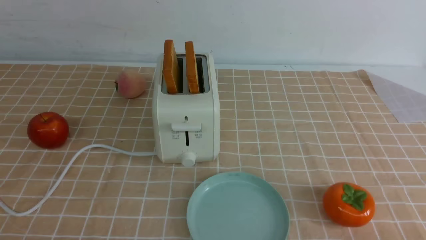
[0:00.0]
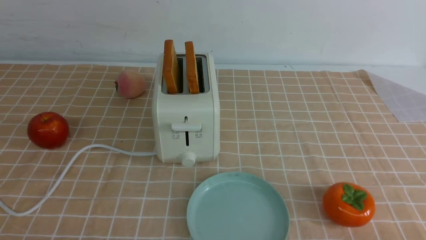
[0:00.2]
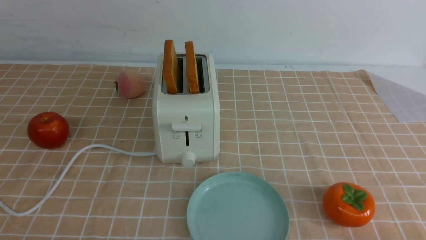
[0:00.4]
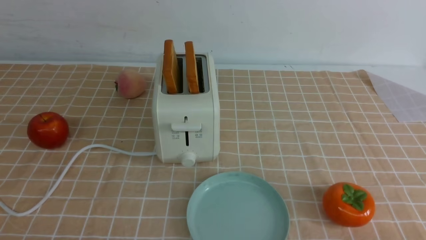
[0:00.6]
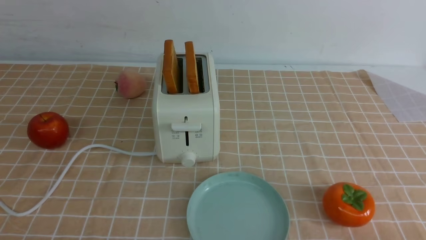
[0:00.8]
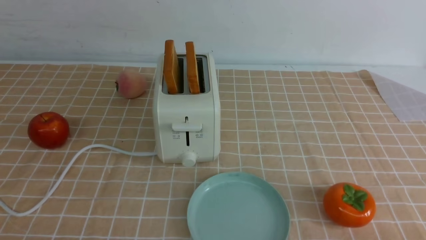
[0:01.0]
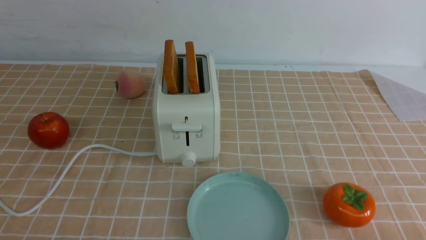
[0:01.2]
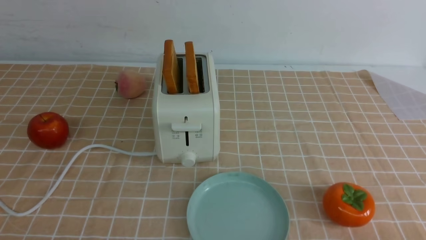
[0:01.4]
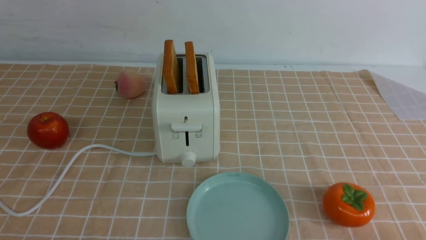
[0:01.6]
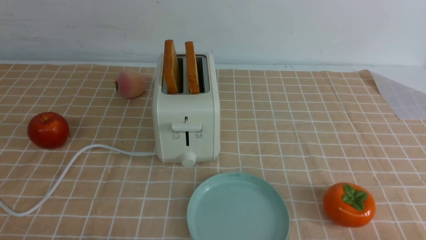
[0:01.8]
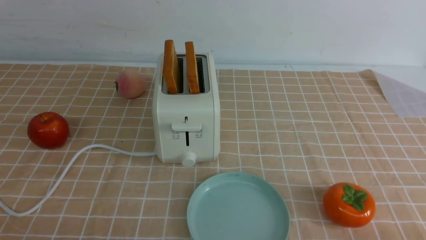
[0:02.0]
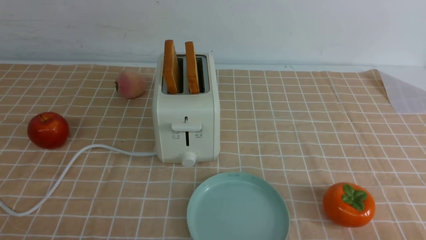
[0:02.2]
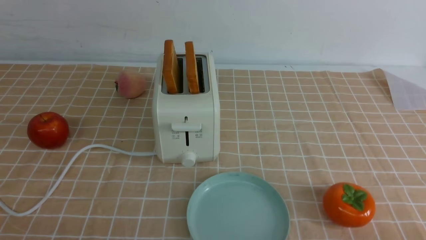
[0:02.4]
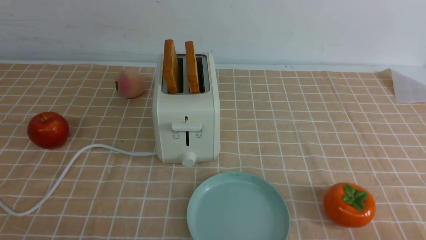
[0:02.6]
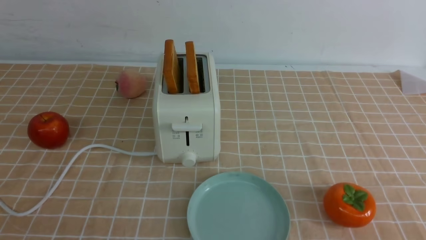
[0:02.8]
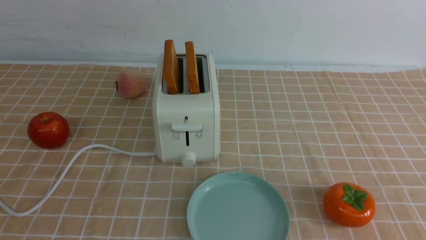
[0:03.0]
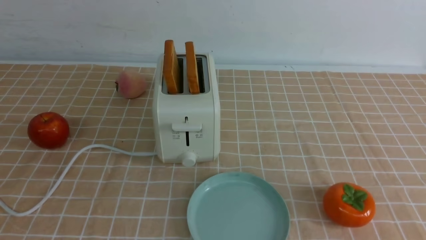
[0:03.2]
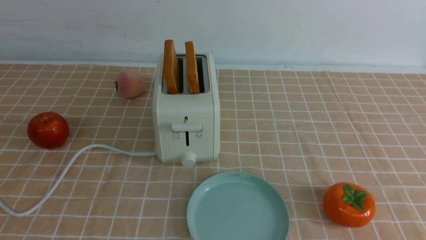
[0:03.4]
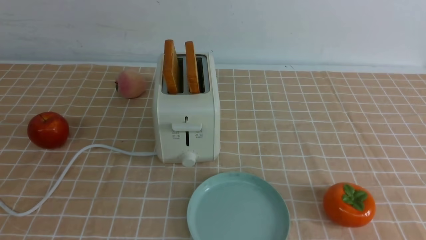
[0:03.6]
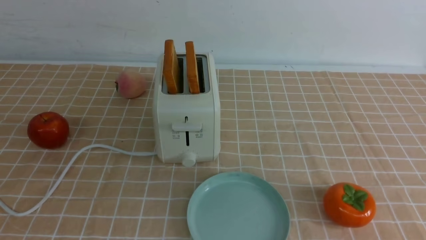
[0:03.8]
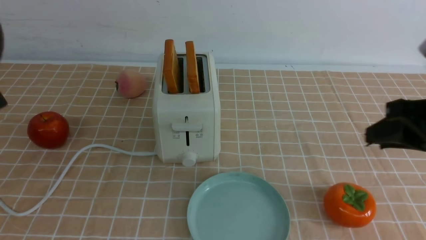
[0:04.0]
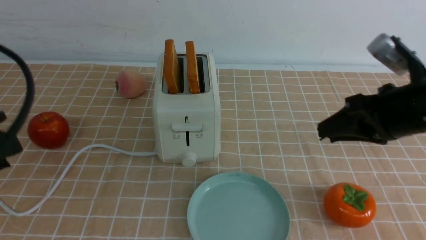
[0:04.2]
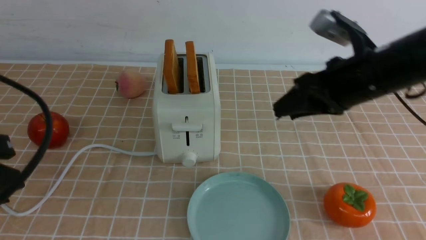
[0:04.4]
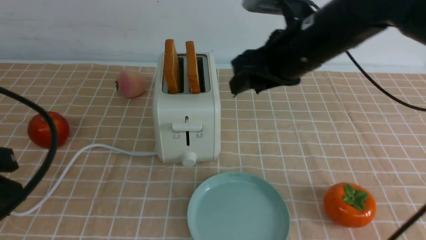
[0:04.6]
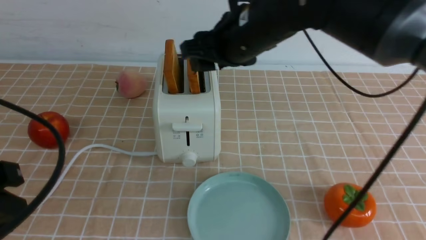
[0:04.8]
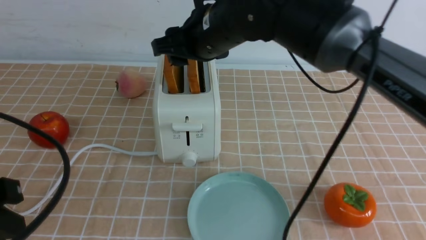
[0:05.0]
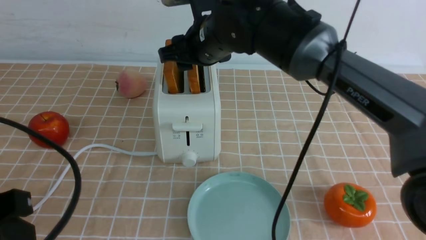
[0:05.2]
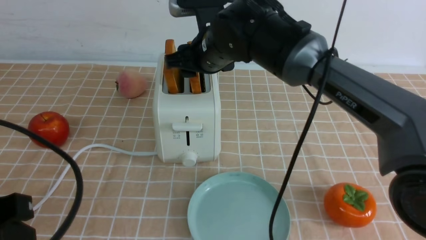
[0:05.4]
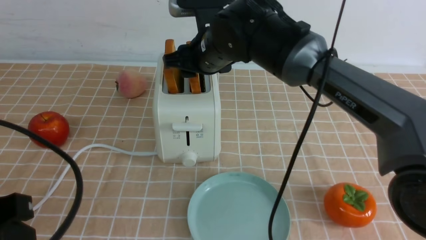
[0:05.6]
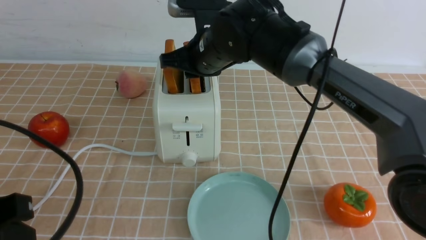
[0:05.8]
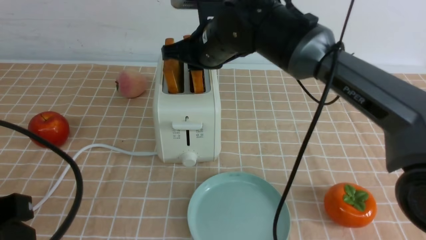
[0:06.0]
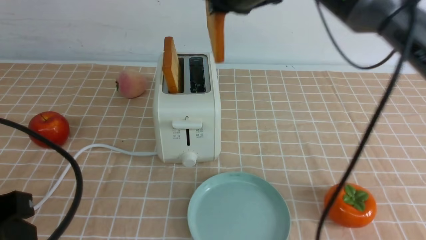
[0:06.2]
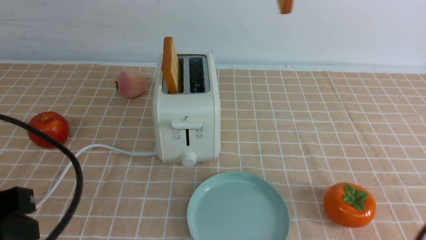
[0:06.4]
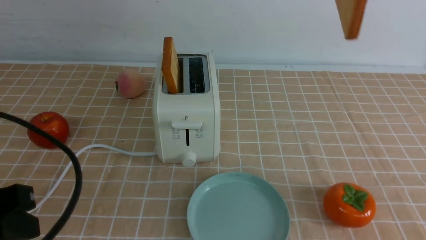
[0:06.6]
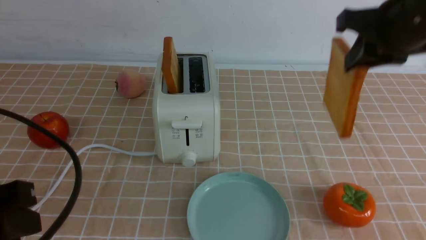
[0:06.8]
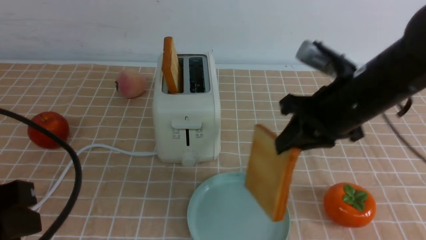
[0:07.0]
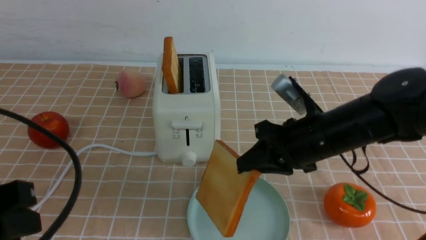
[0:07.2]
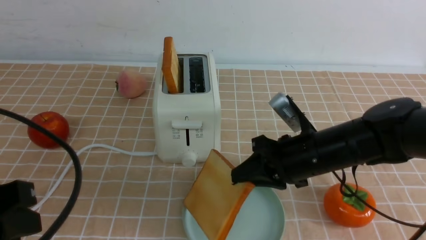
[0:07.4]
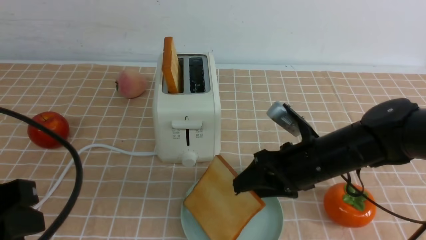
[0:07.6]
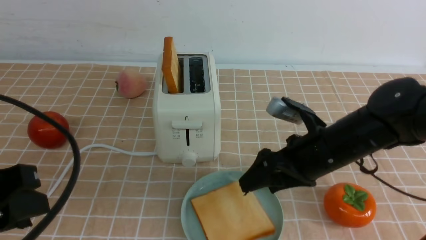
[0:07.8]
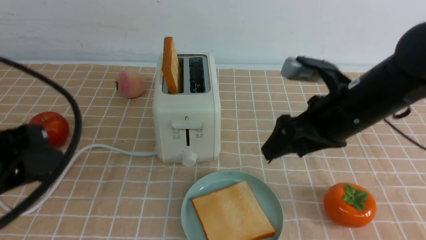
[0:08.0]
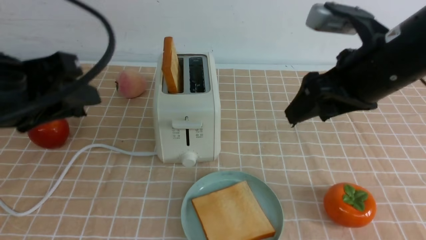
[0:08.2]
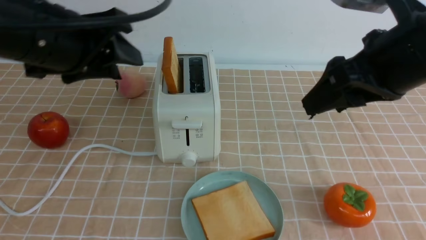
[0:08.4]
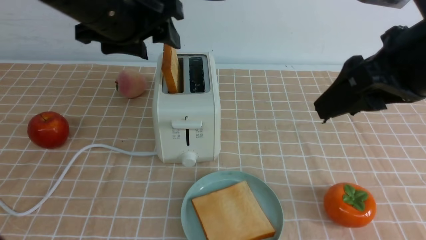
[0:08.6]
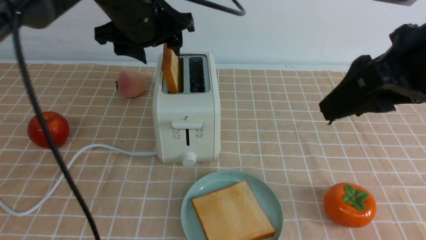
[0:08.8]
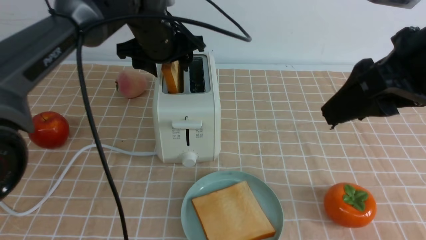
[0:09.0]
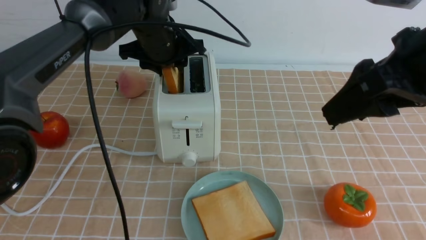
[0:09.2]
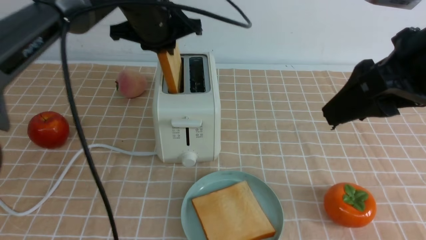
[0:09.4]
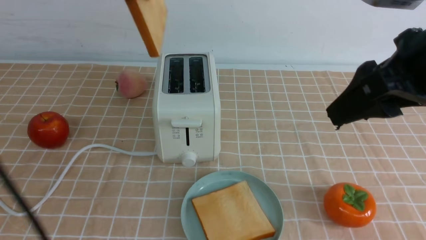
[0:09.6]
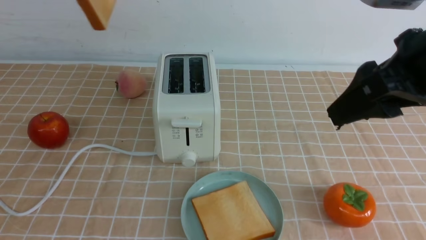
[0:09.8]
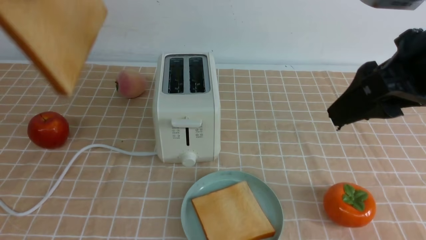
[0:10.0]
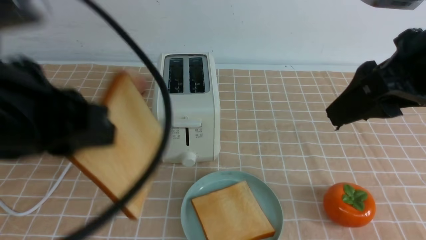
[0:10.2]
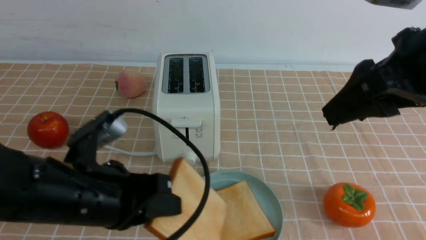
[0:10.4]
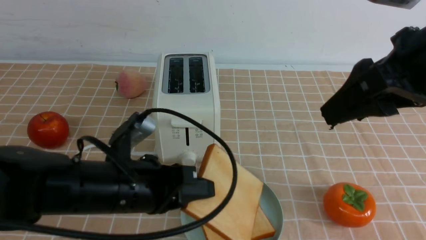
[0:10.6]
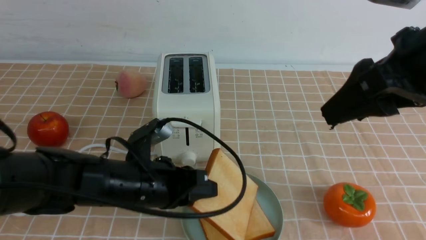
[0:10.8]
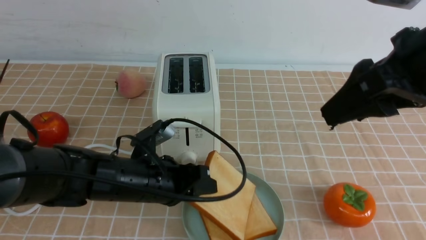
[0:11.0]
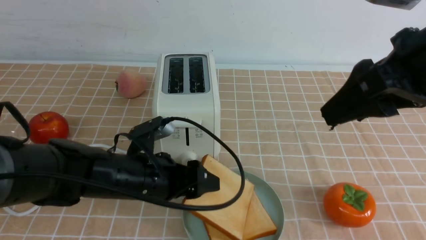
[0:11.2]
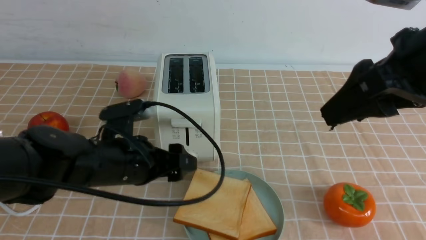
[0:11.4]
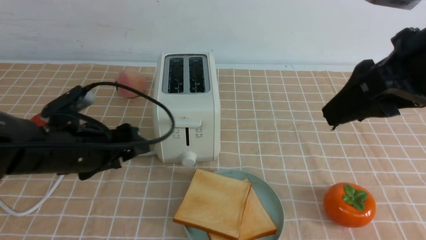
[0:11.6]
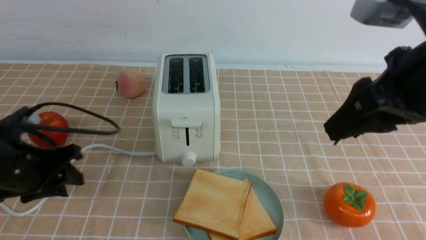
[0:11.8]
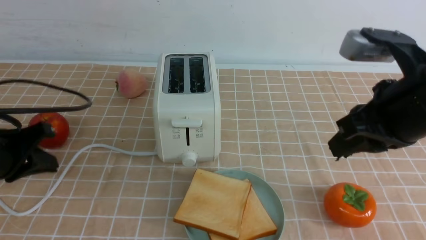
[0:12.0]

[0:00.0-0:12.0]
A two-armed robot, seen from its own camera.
Task of the whole recording: take toasted bread from bread machine on light coffee tablecloth place on plate.
Step, 0:00.0 to 0:06.0: use the right arm to take out a slice of bread.
Step, 0:06.2 to 0:07.8: use the right arm to put a slice of bread into the plate.
Step, 0:08.0 to 0:09.4: use the left arm to take out a slice of bread.
Step, 0:09.6 to 0:11.2: use the left arm to put a slice of bread into the empty plate.
0:00.0 to 0:01.6: Both grippers stay about where they are.
0:01.6 to 0:03.0: The right gripper travels upward by some 20 cm.
0:03.0 to 0:04.4: The left gripper shifts roughly 10 cm forward, while the right gripper moves forward and to the left, about 30 cm.
0:04.4 to 0:06.0: The right gripper moves to the left and forward, some 15 cm, and closes up.
0:06.0 to 0:07.6: The right gripper travels downward, to the right and backward by about 20 cm, and opens up.
0:07.6 to 0:09.0: The right gripper heads upward, covering roughly 20 cm; the left gripper moves forward and to the right, about 35 cm, and opens up.
0:09.0 to 0:10.4: The left gripper travels backward by about 25 cm, and closes its fingers.
0:10.4 to 0:12.0: The left gripper goes roughly 15 cm to the left, and opens, then closes again; the right gripper moves downward, some 5 cm, and closes.

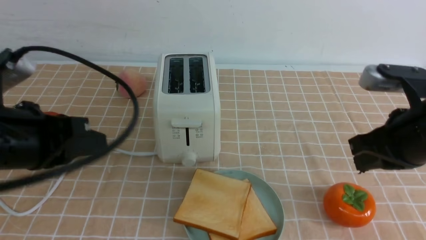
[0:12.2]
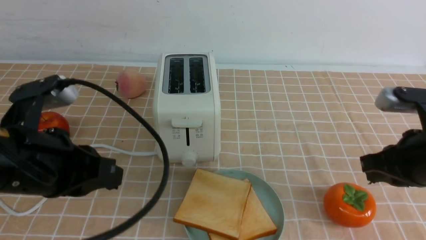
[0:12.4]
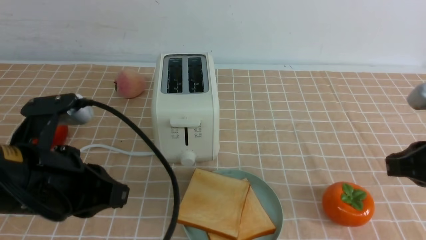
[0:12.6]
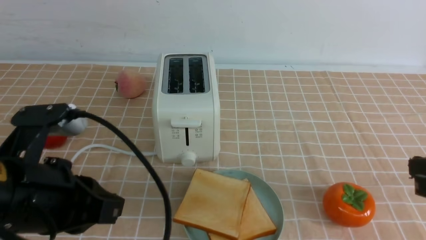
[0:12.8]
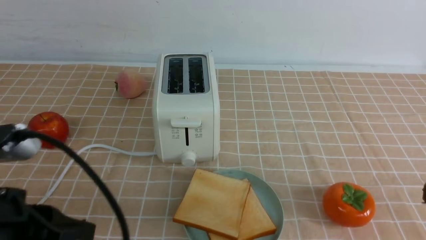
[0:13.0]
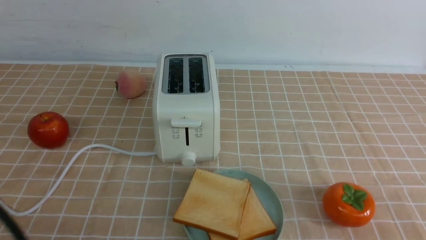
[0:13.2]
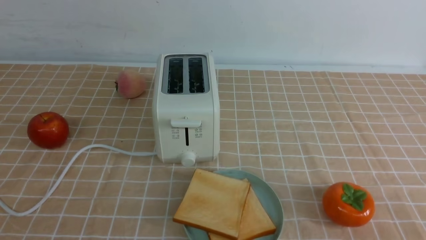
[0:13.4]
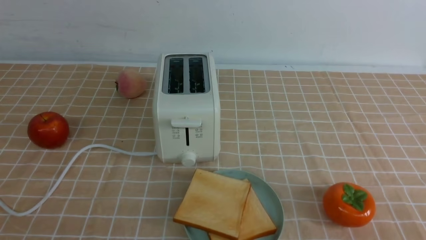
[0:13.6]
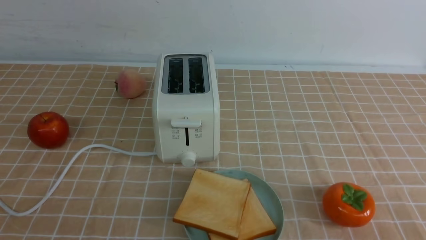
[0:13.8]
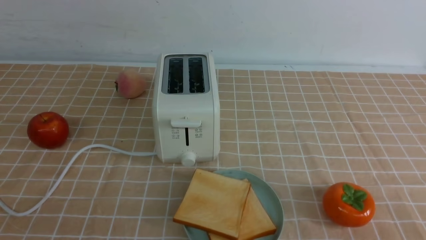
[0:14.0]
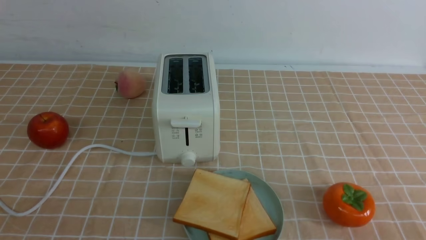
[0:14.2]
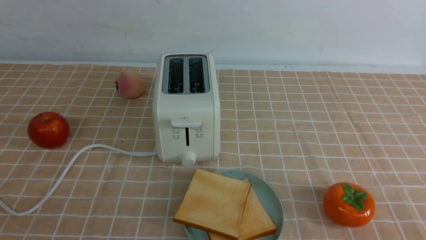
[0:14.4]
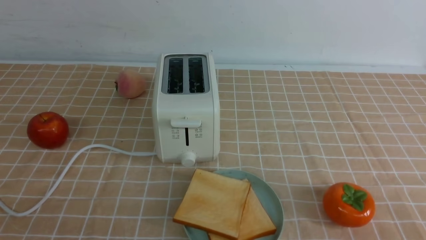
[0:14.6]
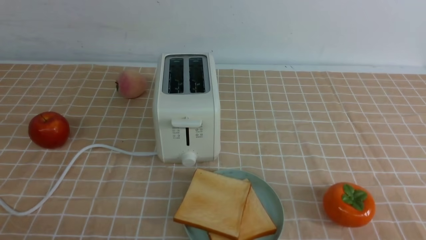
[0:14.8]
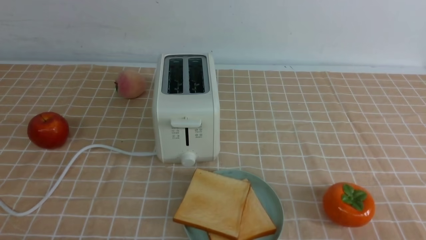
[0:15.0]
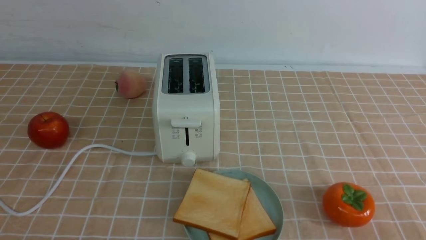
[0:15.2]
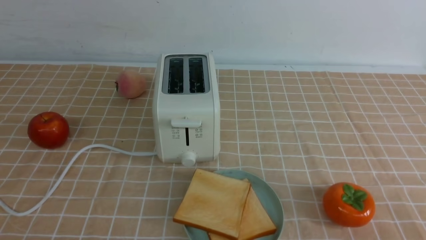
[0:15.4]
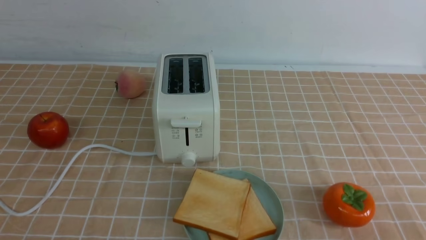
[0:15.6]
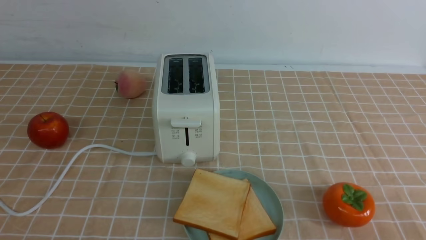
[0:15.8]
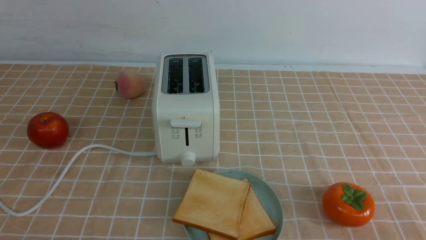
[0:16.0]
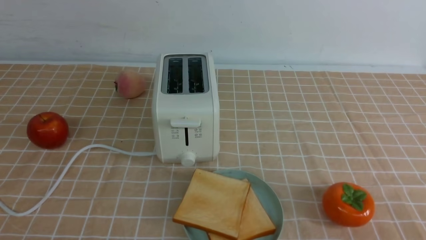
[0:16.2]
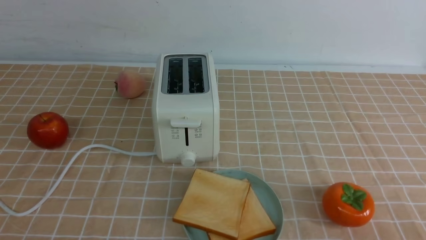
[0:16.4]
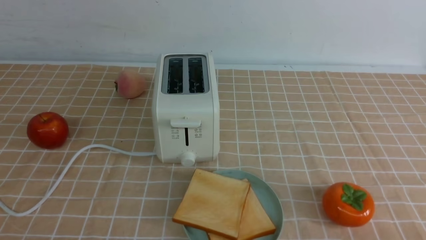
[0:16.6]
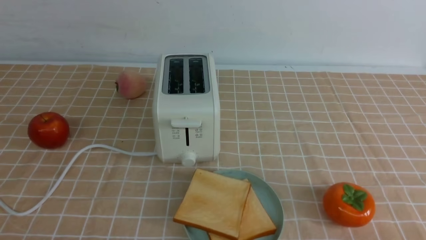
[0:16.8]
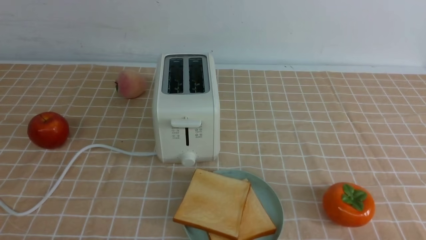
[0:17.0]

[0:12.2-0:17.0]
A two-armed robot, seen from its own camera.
Task of the whole recording: take toasted bread from bread machine on light coffee tablecloth place on plate.
0:12.2 to 0:13.8: Both grippers move backward, some 20 cm.
